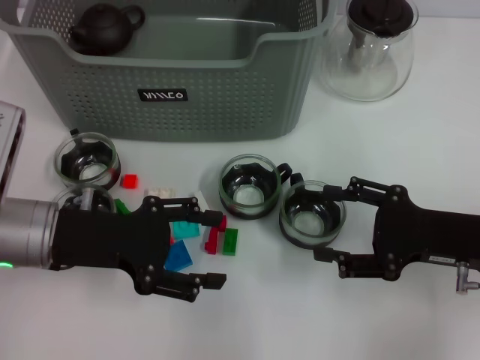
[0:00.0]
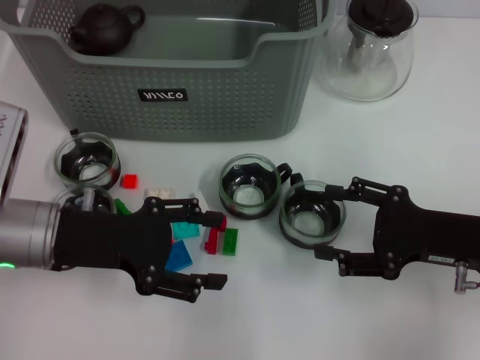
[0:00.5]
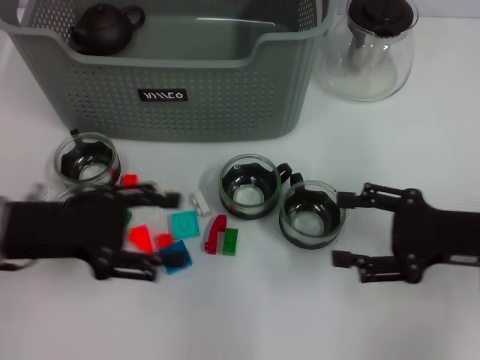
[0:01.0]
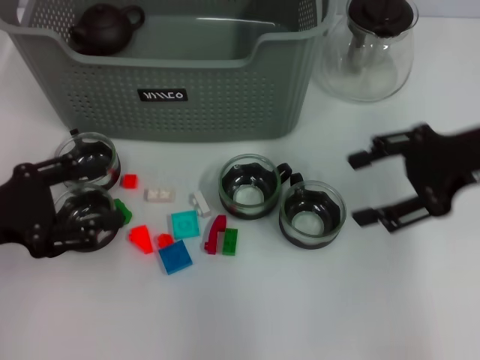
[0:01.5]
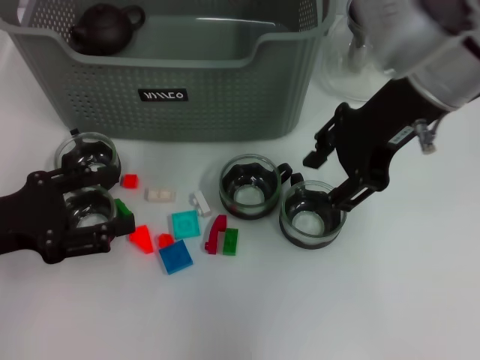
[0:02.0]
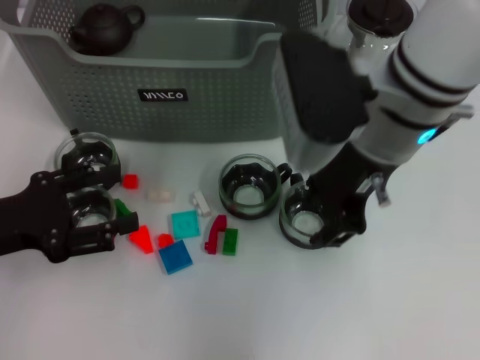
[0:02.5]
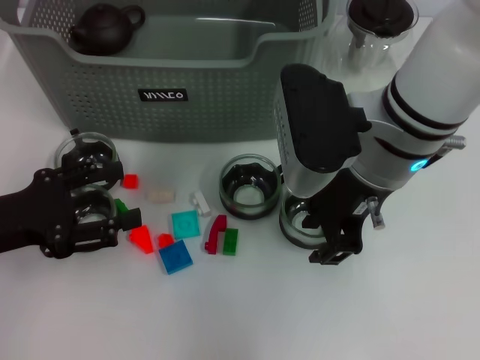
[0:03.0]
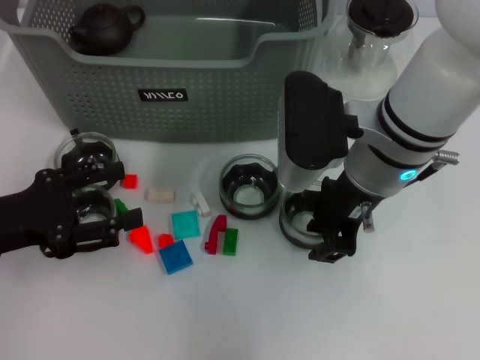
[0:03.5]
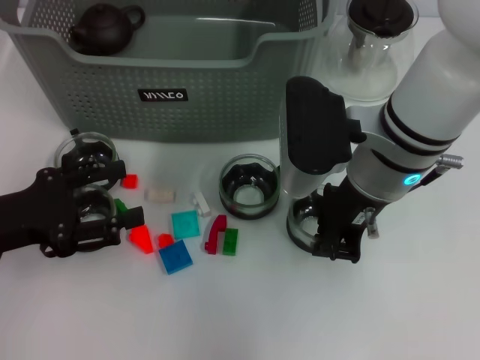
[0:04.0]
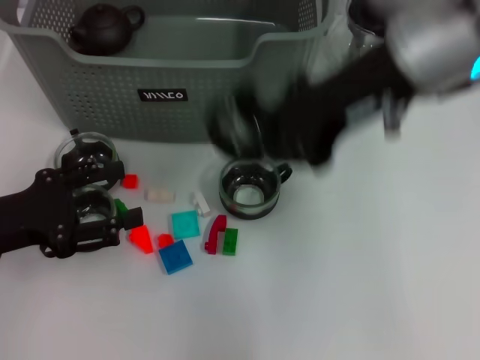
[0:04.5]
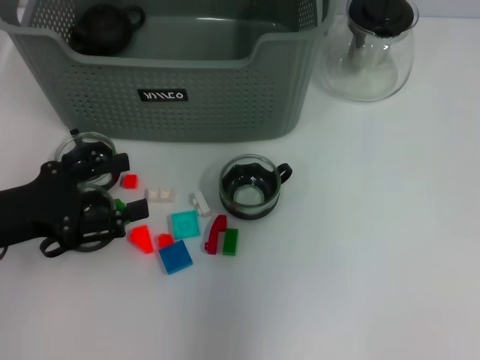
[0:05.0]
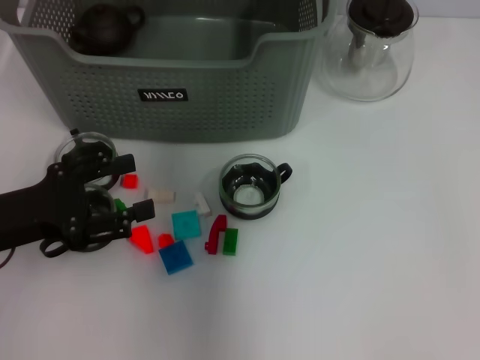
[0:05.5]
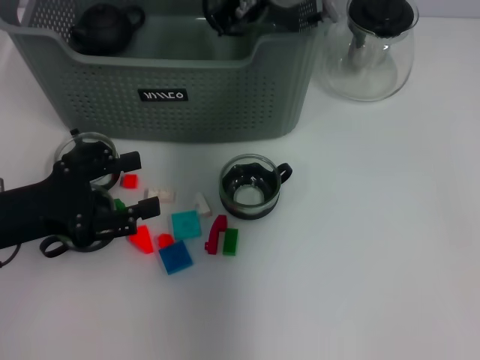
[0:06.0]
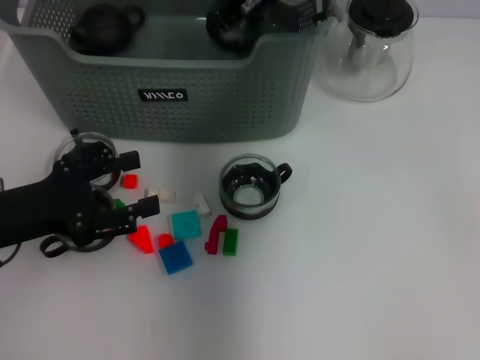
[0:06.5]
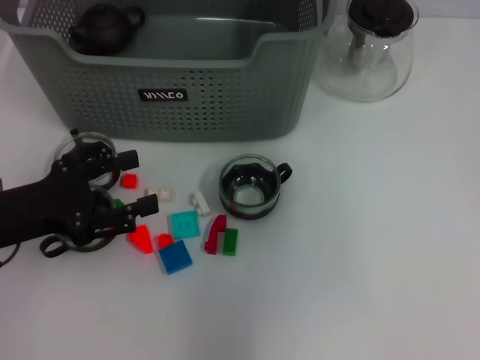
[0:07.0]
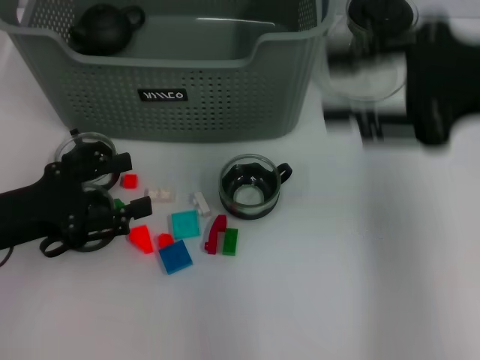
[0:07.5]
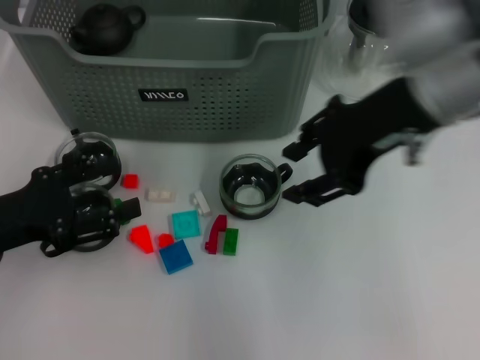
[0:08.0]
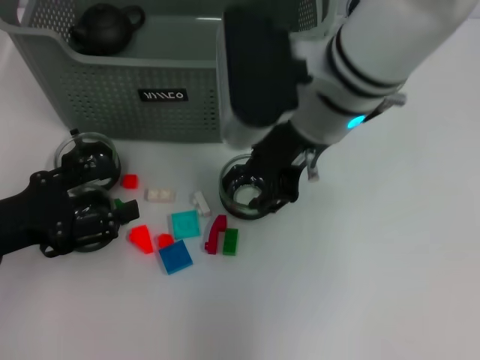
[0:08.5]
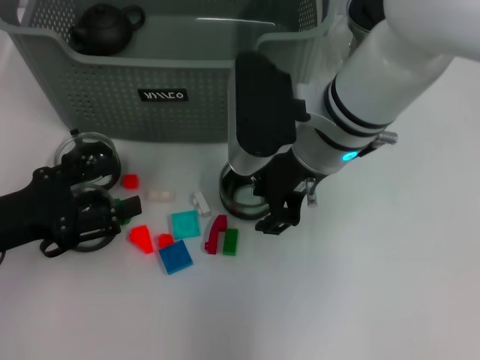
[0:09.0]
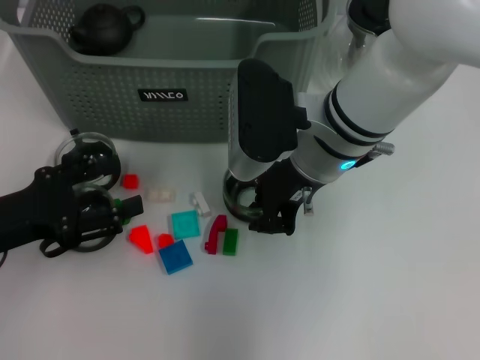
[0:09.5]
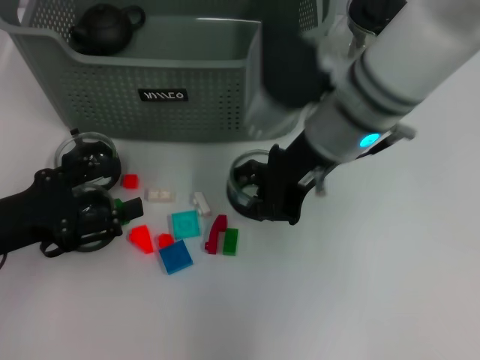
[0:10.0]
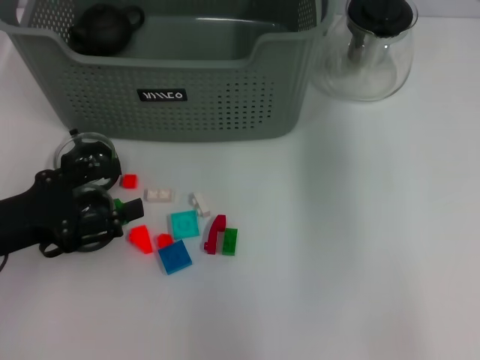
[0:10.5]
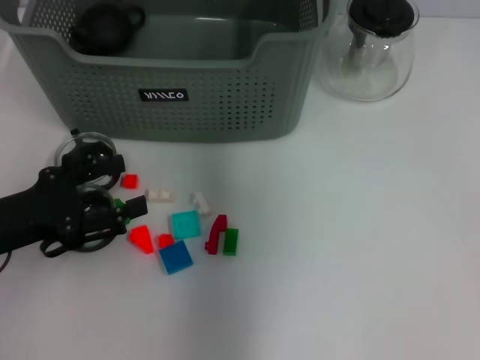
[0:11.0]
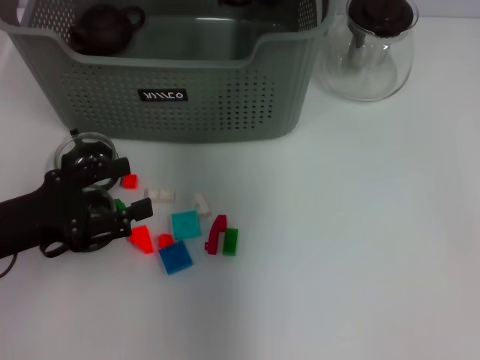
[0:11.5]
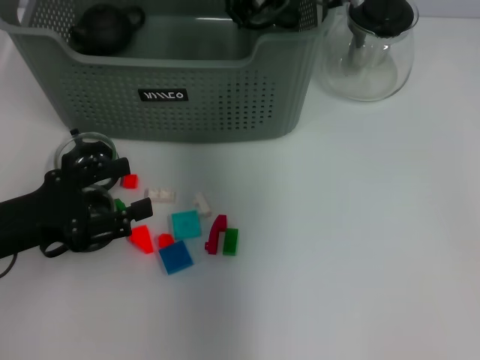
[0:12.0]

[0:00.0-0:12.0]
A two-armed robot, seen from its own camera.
Task of the whole recording: pick up the teacup on the table and place it into the storage bin, pick up the block on the table and place it into the storage bin.
Step, 0:00.0 to 0:03.5: Grasp the cup with right gripper.
Step, 0:04.5 to 0:06.5: Place the cup in the storage box with right gripper.
Step, 0:07.0 to 0:09.5: Grasp the cup with right gripper.
0:00.0 to 0:02.0: The left gripper travels to the left by roughly 10 cm. The right gripper moves upward, to the left and forward, about 25 cm.
0:02.0 to 0:04.0: The right gripper travels downward by about 10 cm, and closes.
0:04.0 to 0:06.0: The right gripper is displaced forward and to the left by approximately 15 cm, and reaches approximately 15 cm upward, then returns.
0:06.0 to 0:08.0: The right gripper travels backward and to the right by approximately 15 cm, and opens.
0:08.0 to 0:10.0: The right gripper goes about 10 cm downward and to the left, and closes.
0:10.0 to 0:12.0: The right gripper is displaced forward by roughly 10 cm, and travels to the right and back again, roughly 10 cm each way.

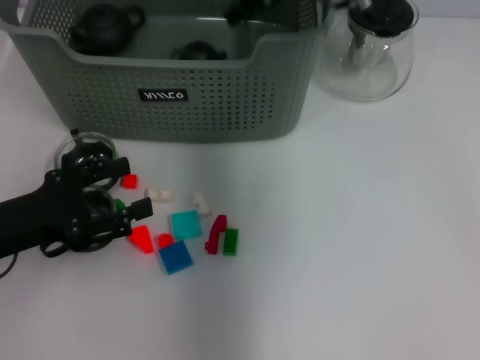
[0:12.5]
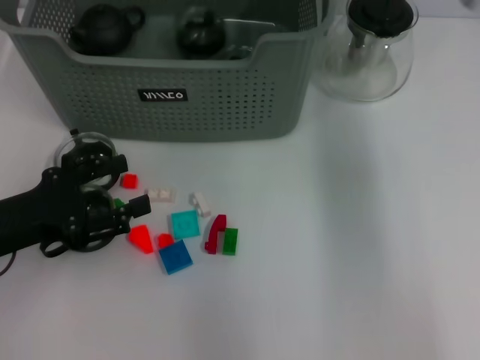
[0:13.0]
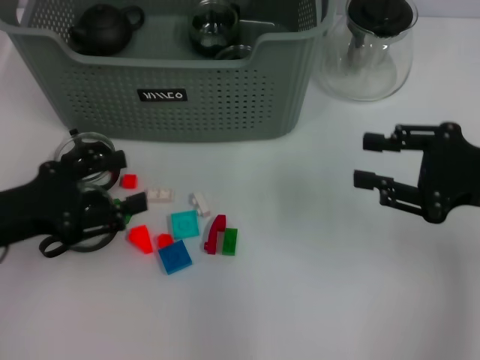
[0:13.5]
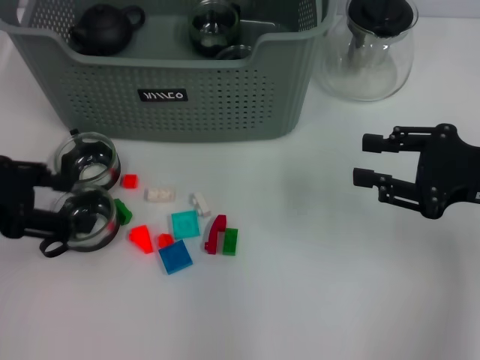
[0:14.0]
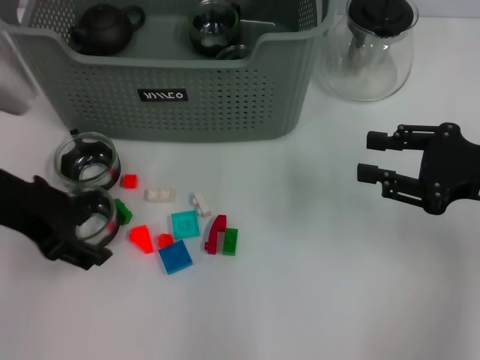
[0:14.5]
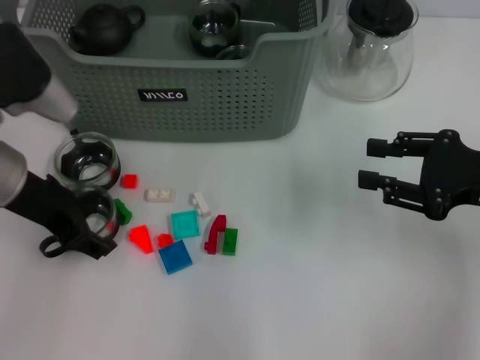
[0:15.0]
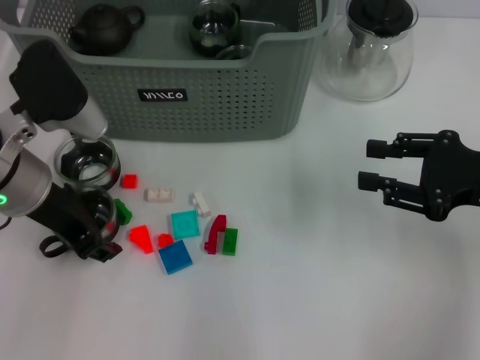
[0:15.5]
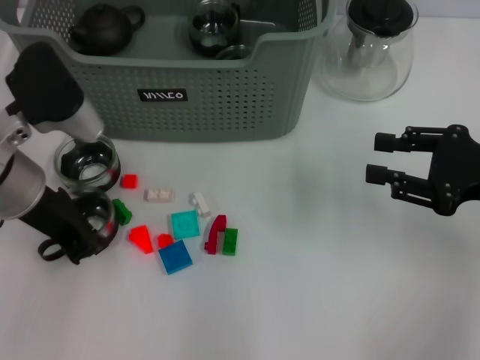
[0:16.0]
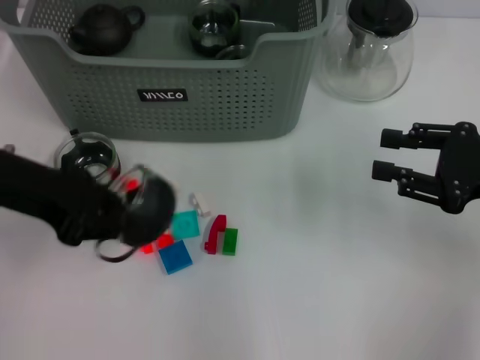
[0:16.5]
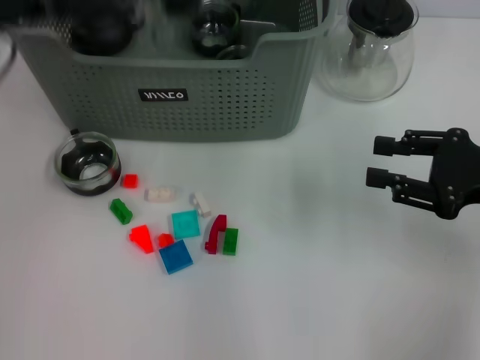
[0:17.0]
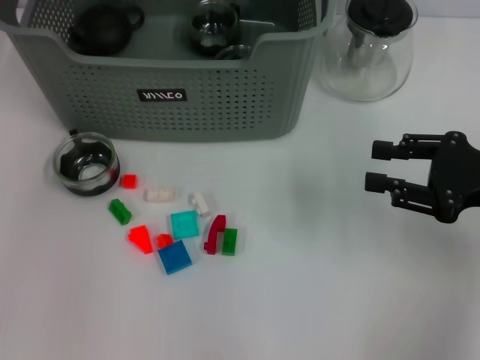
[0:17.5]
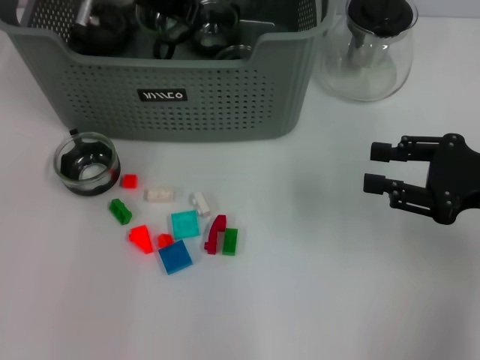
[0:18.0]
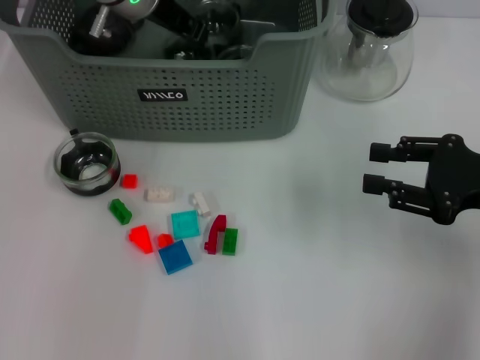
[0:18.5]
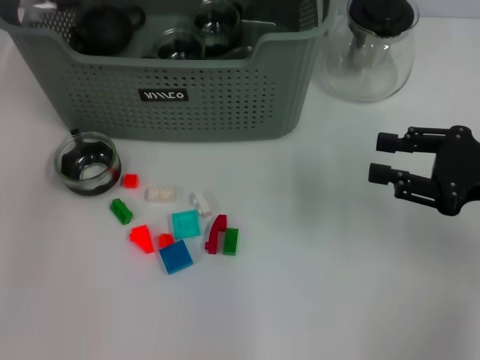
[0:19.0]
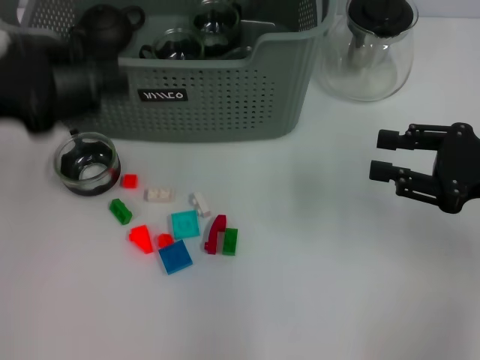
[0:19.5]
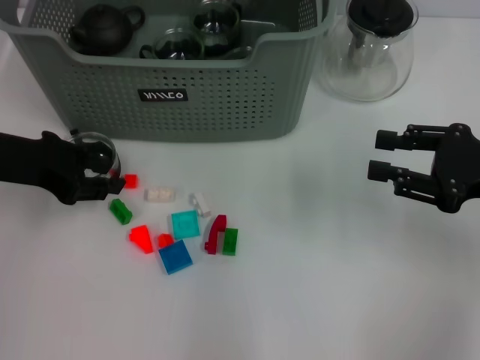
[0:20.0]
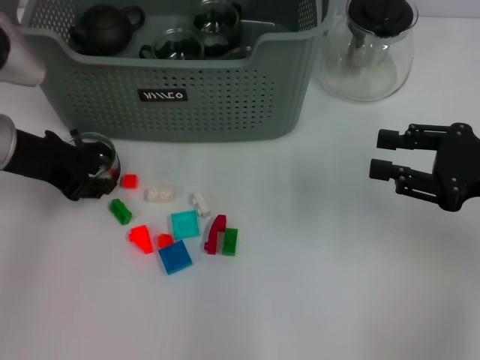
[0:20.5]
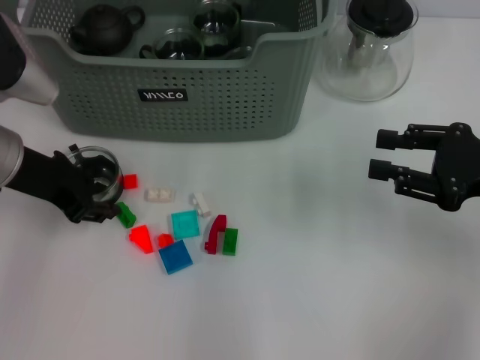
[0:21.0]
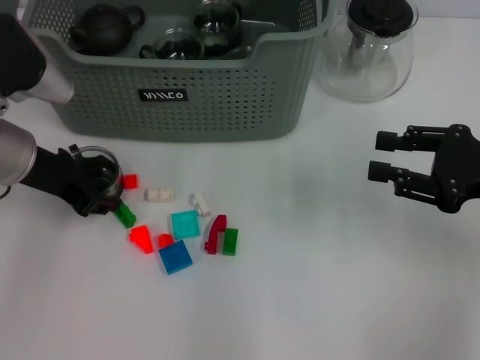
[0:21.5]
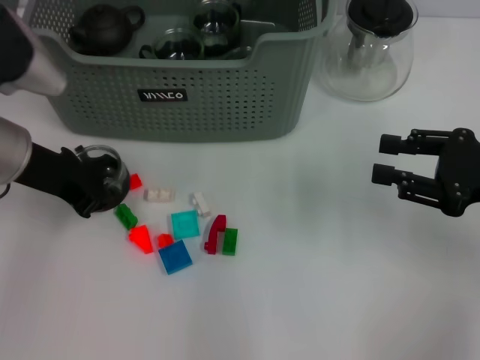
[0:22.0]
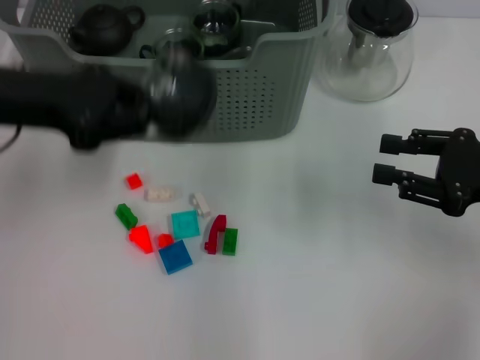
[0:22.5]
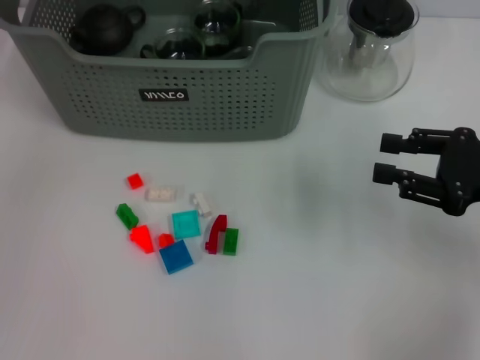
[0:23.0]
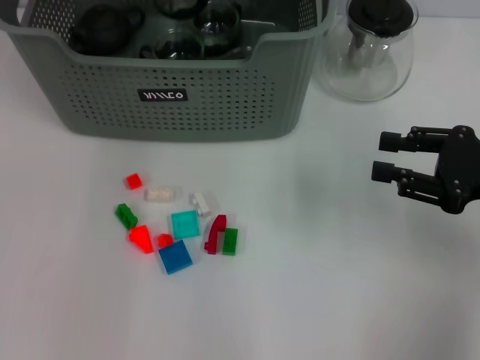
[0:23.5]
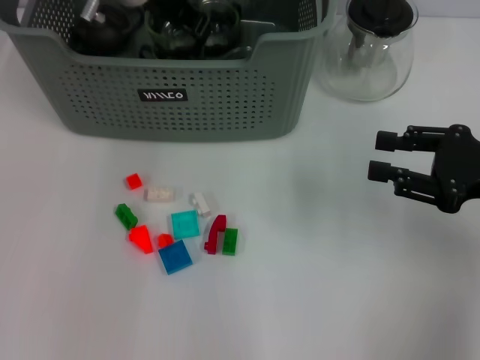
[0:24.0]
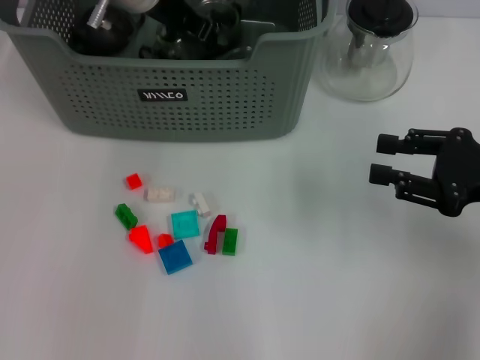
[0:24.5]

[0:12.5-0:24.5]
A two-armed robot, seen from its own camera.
Task of the whole recording: pick up the teacup on the table and place it into the storage bin, pick up the block on the table and place it into the storage bin.
Step, 0:12.5 to 0:15.5: Grasp the cup with left gripper.
Step, 0:16.5 to 0:18.5: Place the cup in the storage box with left gripper.
Step, 0:19.0 to 0:21.5: Grasp the cup with left gripper.
0:12.5 to 0:14.5: The left gripper shifts approximately 15 cm upward, forward and to the right. Meanwhile the right gripper shifts some 30 cm to the right, backward and downward.
0:14.5 to 0:16.5: The left gripper closes.
0:16.5 to 0:18.5: The left gripper moves forward and to the right, approximately 20 cm.
0:18.5 to 0:20.5: The left gripper heads backward and to the left, covering approximately 20 cm, and opens its fingers.
0:20.5 to 0:22.5: The left gripper moves upward, roughly 5 cm, and closes.
0:22.5 to 0:24.5: The left gripper moves forward and to the right, approximately 20 cm.

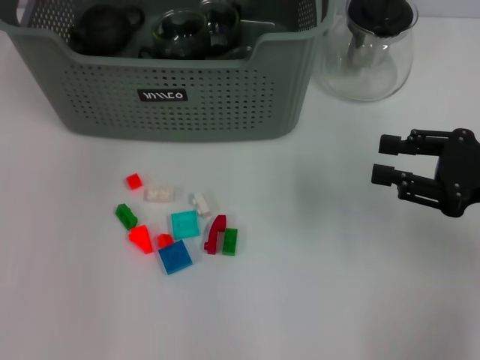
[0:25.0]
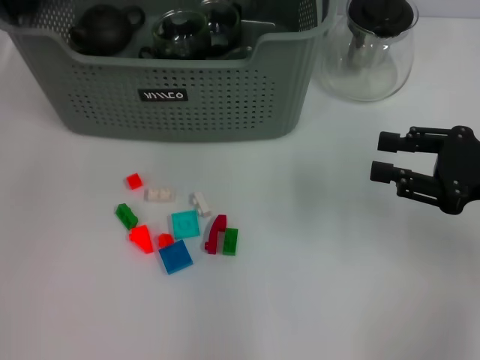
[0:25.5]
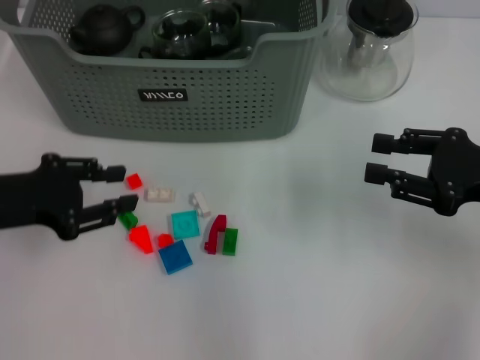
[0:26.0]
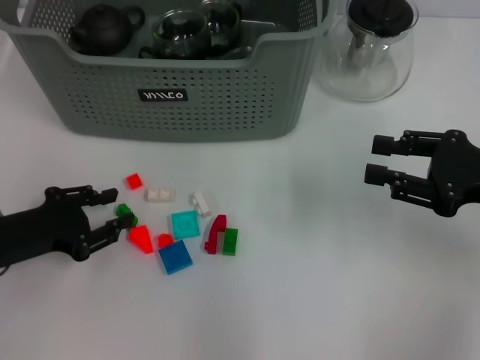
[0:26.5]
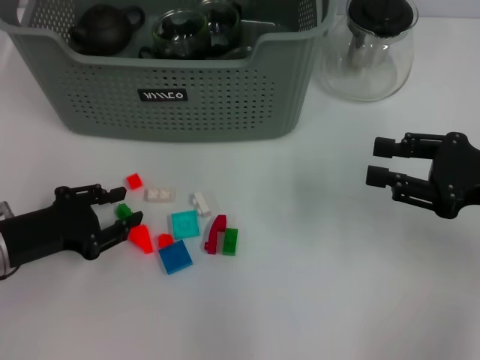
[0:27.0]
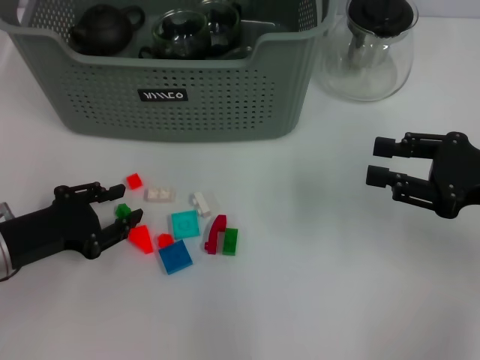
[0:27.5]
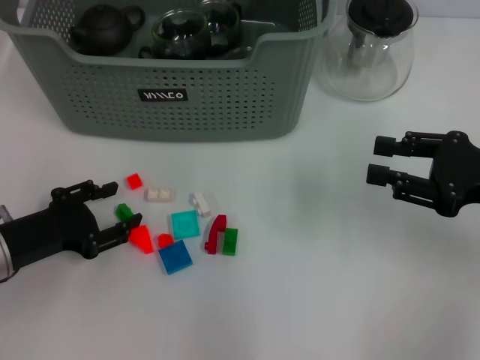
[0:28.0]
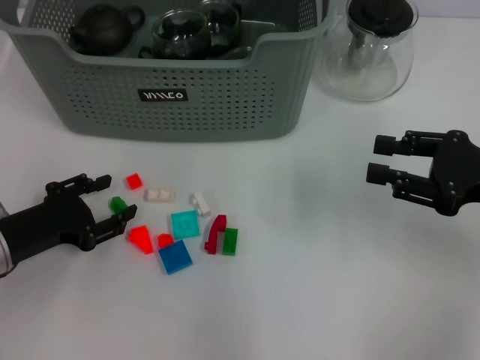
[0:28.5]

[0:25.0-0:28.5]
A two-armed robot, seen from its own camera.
Task of the whole recording: pick up the teacup on the table and place it into the storage bin, pick up the block on the table and place it into the storage bin.
0:25.0 to 0:27.0: The left gripper goes about 30 cm downward, backward and to the left.
0:27.0 to 0:28.5: The grippers make only small movements.
